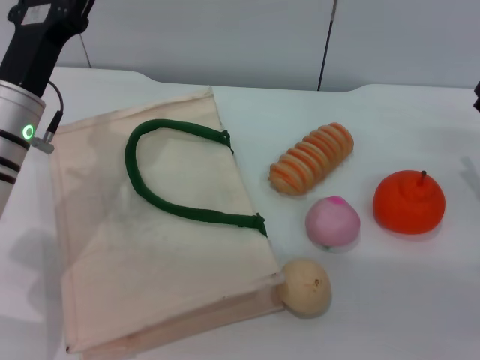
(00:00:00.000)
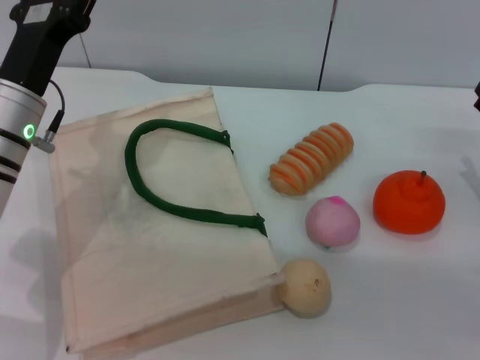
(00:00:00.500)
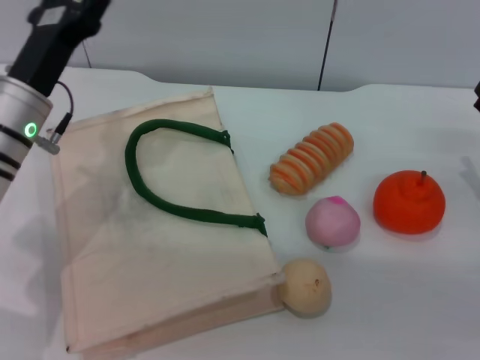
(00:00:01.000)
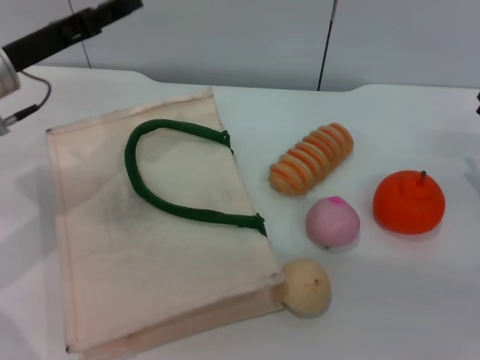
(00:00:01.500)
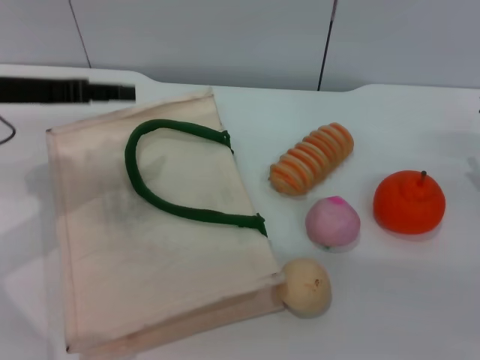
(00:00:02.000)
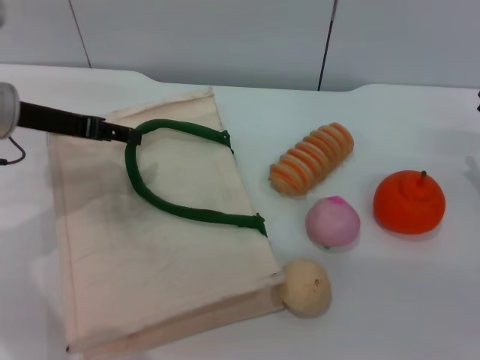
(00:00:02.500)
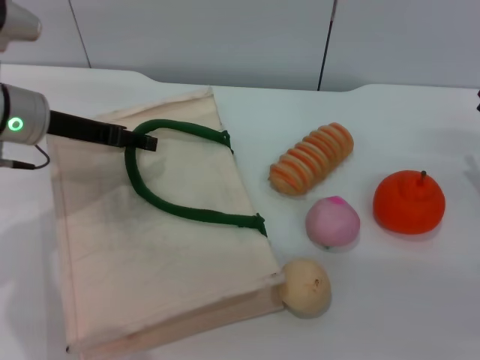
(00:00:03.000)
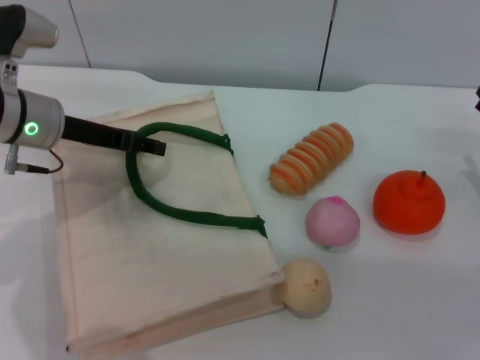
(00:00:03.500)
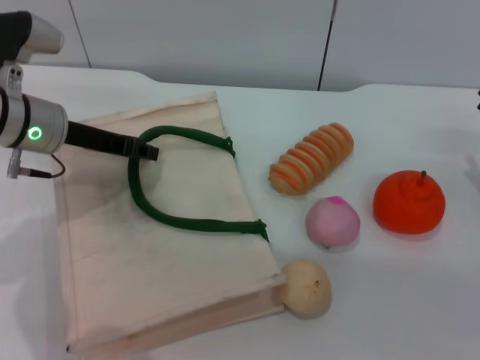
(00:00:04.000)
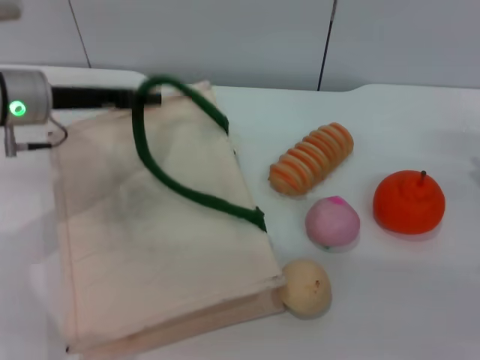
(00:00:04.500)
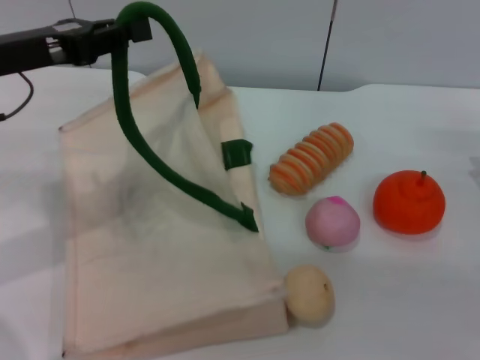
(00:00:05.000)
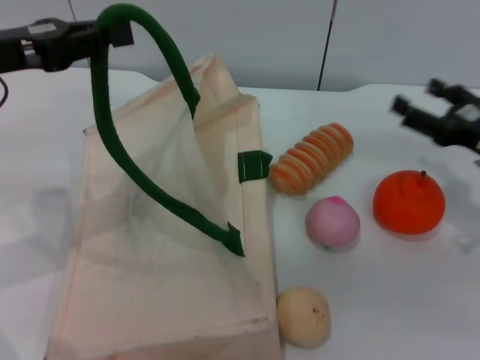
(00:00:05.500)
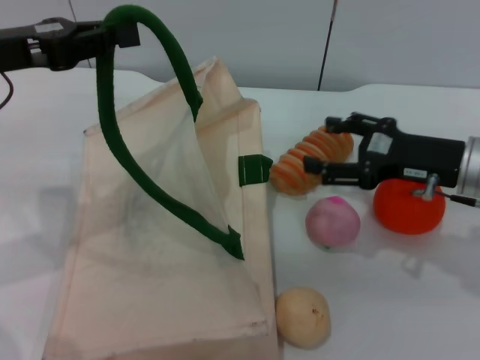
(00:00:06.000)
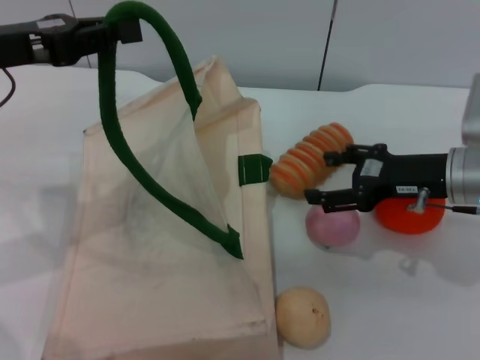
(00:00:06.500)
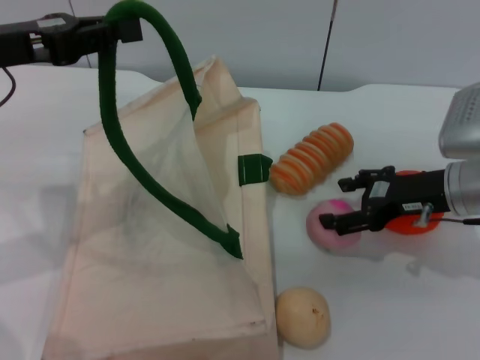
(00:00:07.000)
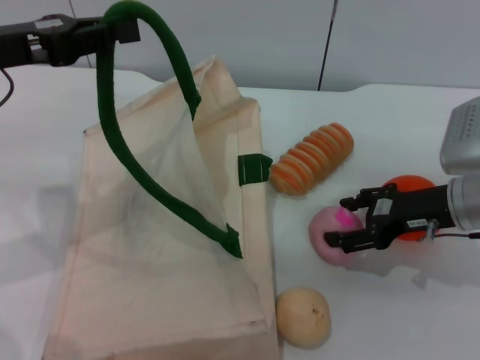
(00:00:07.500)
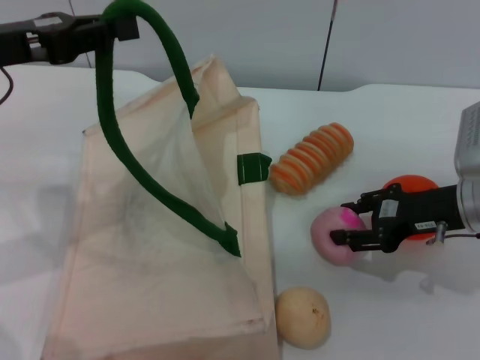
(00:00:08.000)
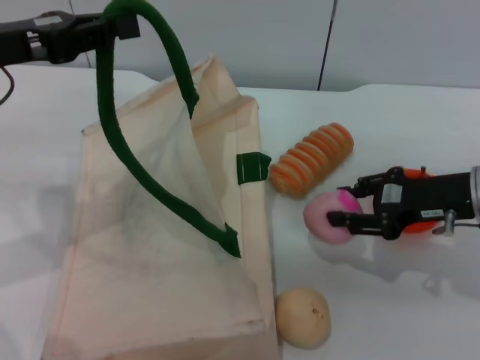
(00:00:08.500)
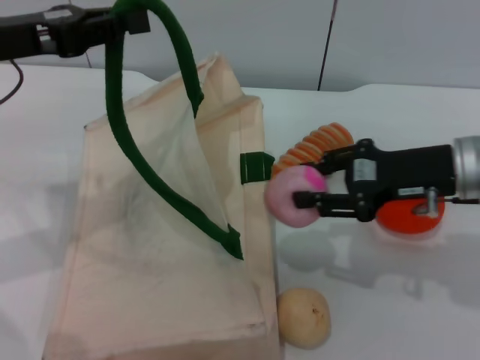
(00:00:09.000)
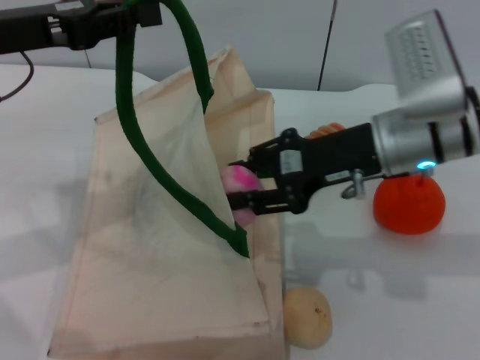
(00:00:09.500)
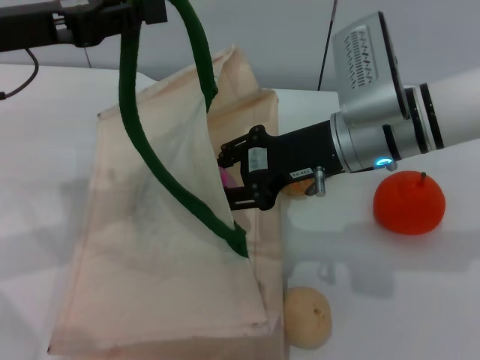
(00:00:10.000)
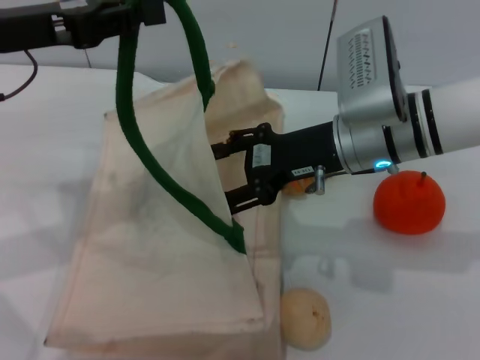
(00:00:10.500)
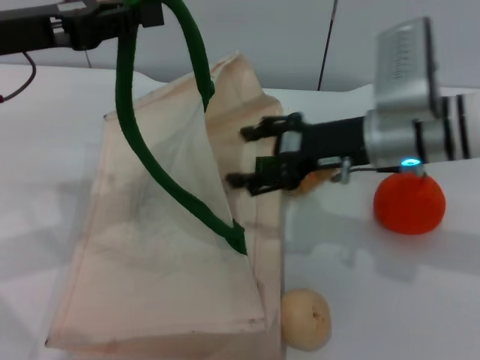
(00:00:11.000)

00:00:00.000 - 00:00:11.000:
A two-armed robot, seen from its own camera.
Task of the whole recording: pick up the peach from the table and place it in the white handbag.
Step, 00:00:00.000 - 00:00:05.500: Lift the woven bag with the left gripper to open it.
Step, 00:00:06.000 - 00:00:08.500: Pick up the peach with the right gripper.
Step, 00:00:09.000 - 00:00:10.500: Place the peach into the woven bag with the right gripper.
00:00:00.000 - 00:00:02.000: The left gripper shifts some 10 cm to the left and upward.
00:00:02.000 - 00:00:03.500: The left gripper shifts by approximately 5 cm.
00:00:03.500 - 00:00:05.500: The left gripper travels upward and backward by approximately 10 cm, and closes its fingers.
00:00:05.500 - 00:00:07.500: The right gripper is displaced to the left by some 5 cm.
00:00:07.500 - 00:00:09.000: The right gripper travels upward by some 5 cm, and closes.
00:00:09.000 - 00:00:11.000: The right gripper travels to the left by about 5 cm, and opens.

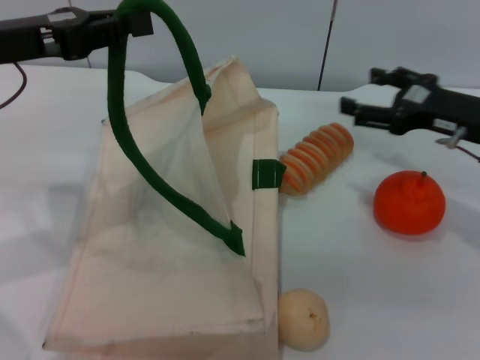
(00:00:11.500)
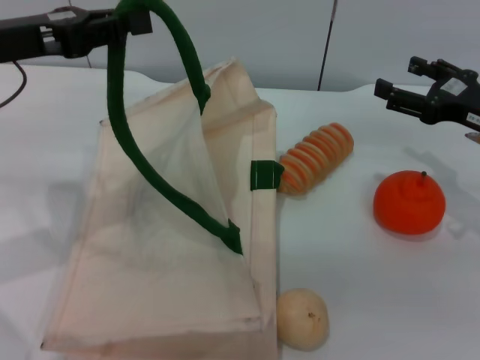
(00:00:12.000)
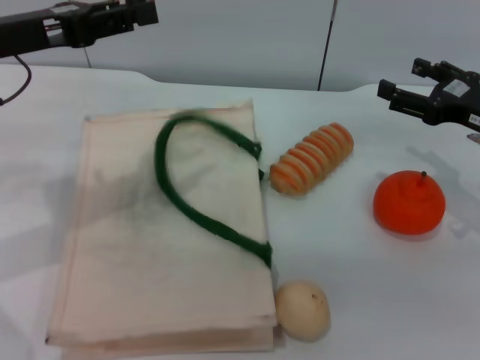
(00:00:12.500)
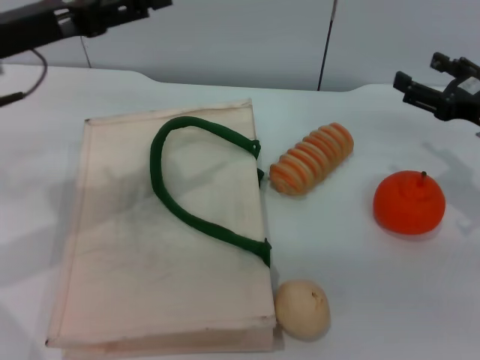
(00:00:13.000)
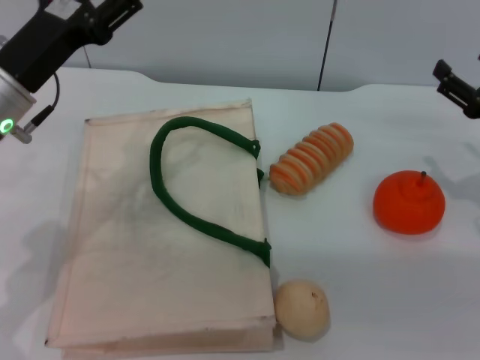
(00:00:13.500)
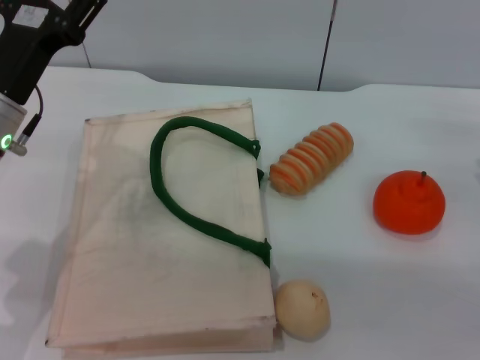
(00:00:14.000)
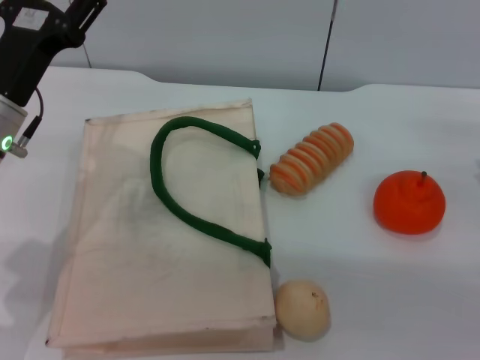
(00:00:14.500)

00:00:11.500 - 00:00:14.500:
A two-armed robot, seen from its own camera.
Task of the whole recording: pick up the peach from the table and place it in the white handbag.
Step, 00:00:11.500 - 00:00:12.500: Lower the woven bag with the left gripper to close it.
00:00:11.500 - 00:00:13.000: The left gripper opens up.
00:00:13.000 - 00:00:14.500: The right gripper moves roughly 5 cm; the left gripper heads downward, covering roughly 10 cm.

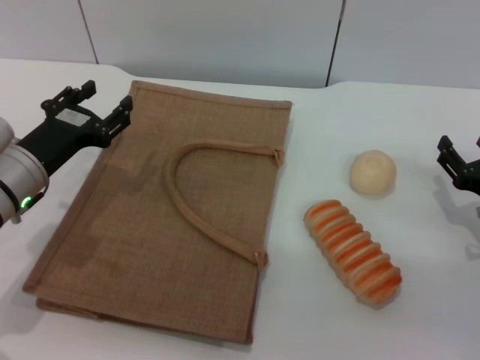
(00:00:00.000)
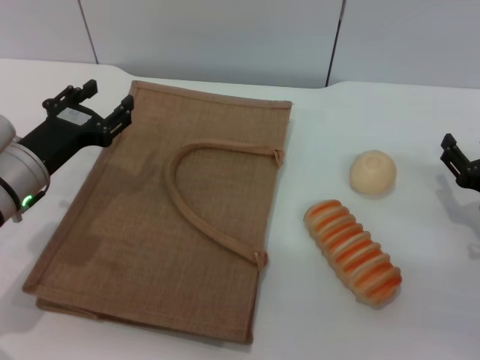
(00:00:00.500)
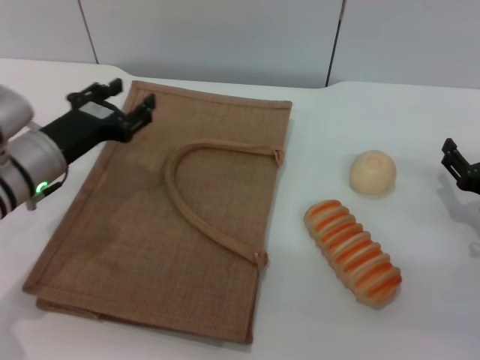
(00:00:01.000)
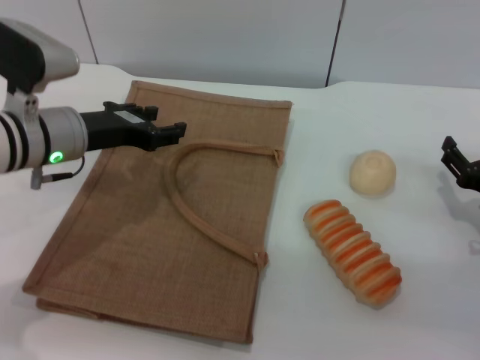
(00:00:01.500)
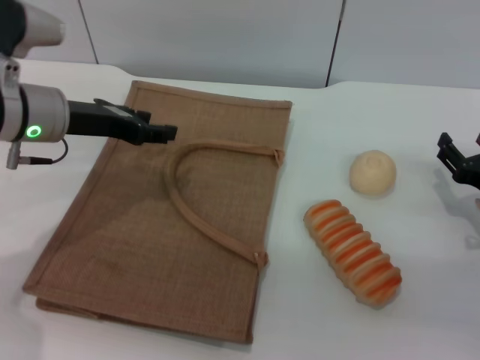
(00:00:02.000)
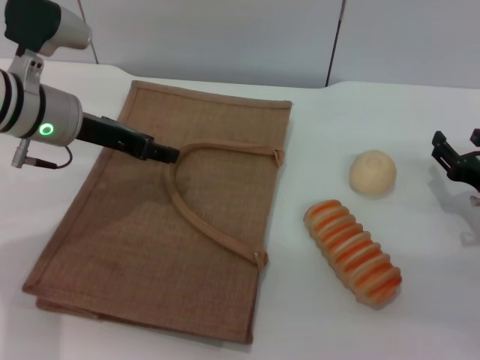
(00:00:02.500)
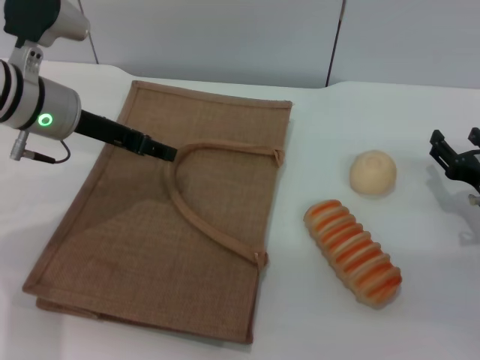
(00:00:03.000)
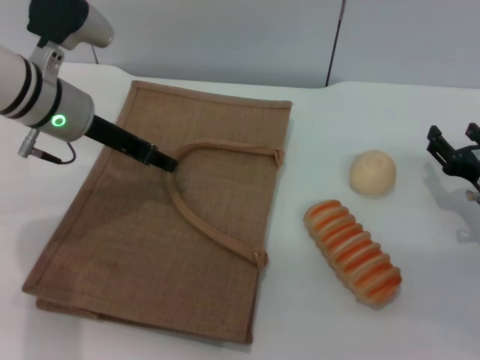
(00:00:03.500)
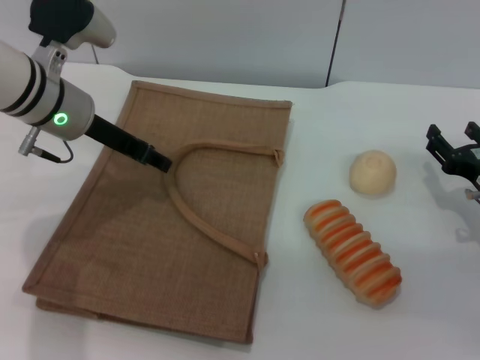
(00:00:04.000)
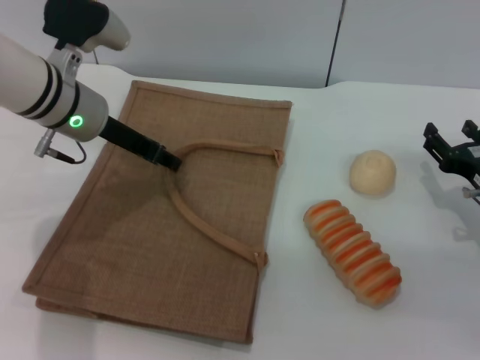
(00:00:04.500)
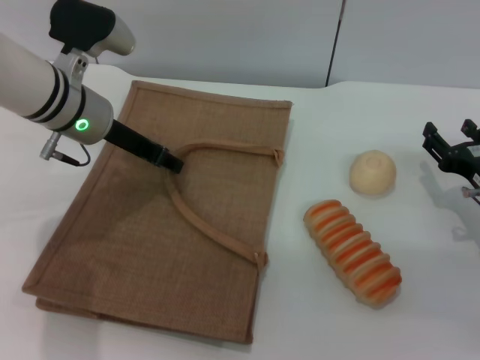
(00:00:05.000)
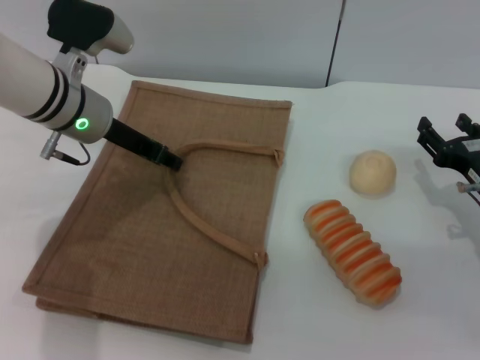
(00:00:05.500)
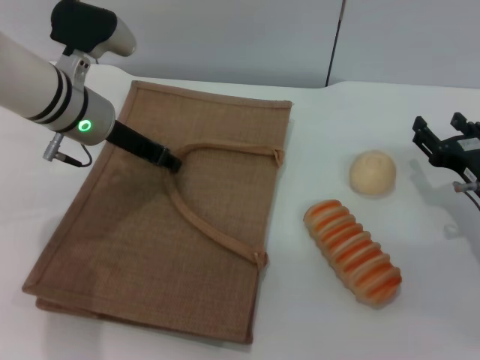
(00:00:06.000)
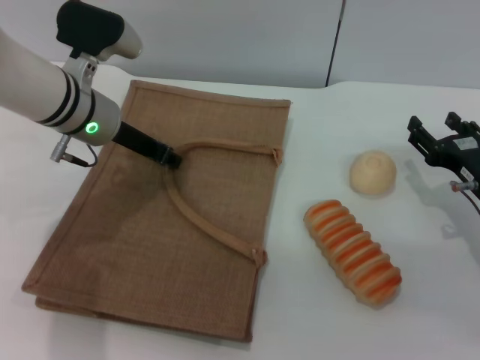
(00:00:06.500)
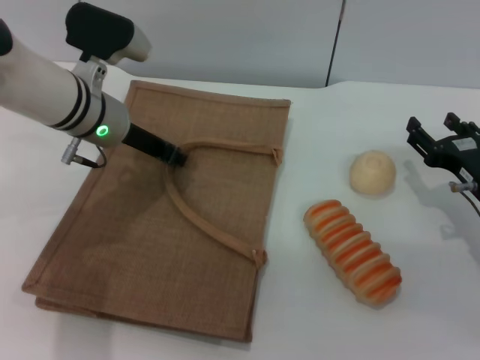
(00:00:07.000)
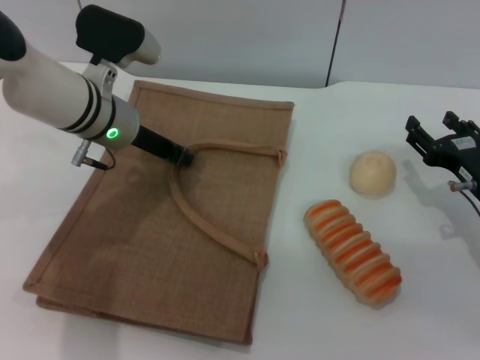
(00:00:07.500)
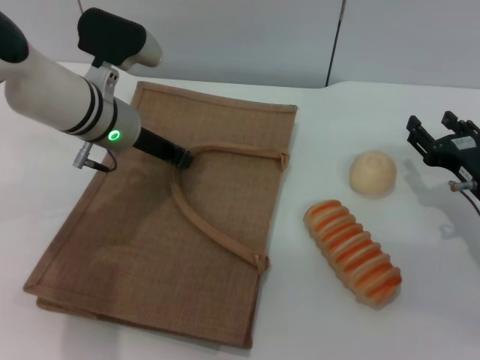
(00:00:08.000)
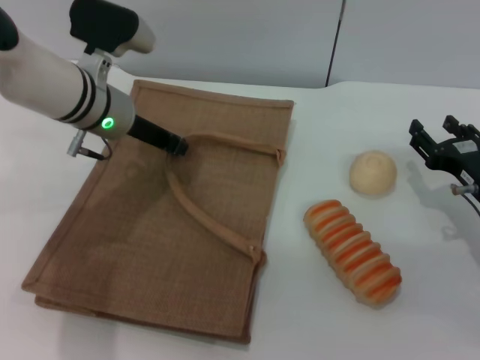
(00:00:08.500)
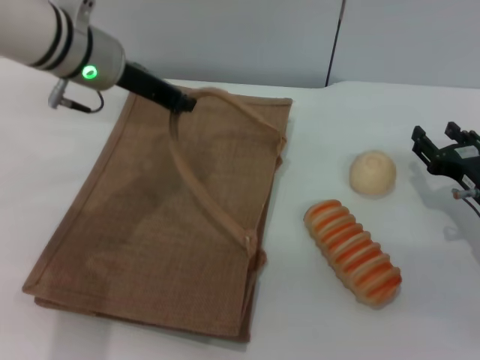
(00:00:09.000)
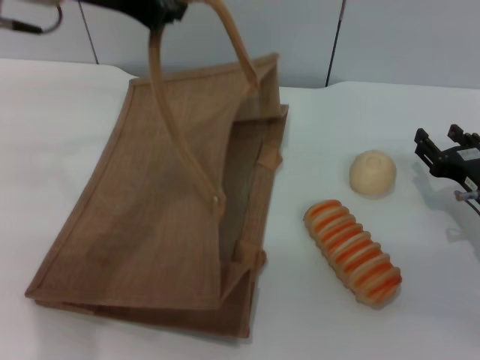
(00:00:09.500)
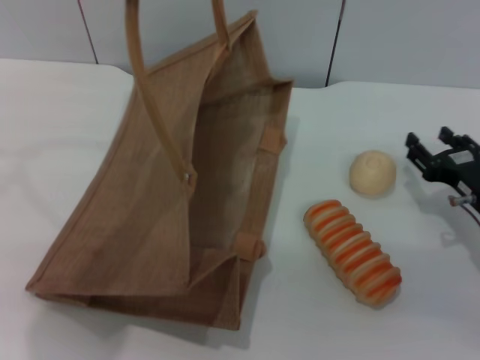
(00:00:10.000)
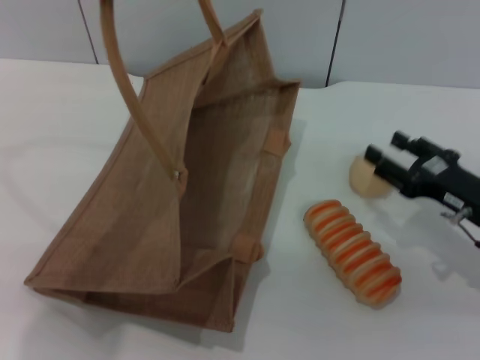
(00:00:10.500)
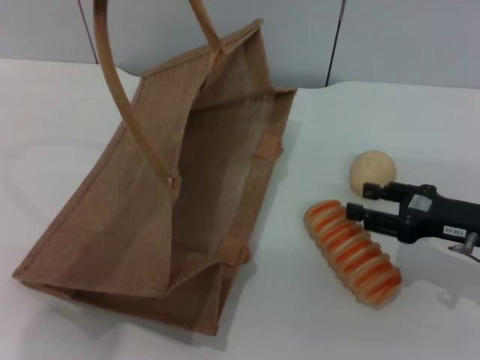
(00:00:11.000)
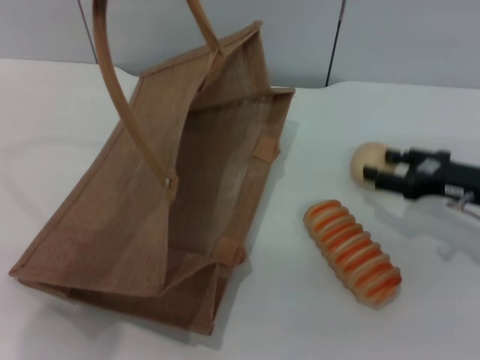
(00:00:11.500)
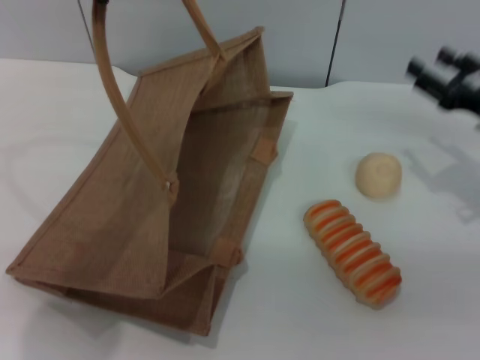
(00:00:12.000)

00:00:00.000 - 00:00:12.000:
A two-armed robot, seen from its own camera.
Task of the whole recording: pick up the bread and egg yolk pastry from the table and place it in the brown handbag.
Step, 00:00:00.000 - 00:00:10.000: Lift the woven bag with the left gripper to open it.
00:00:00.000 - 00:00:02.000: The left gripper moves upward and forward, roughly 10 cm.
00:00:04.000 - 00:00:06.000: The grippers move only a little.
00:00:06.000 - 00:00:08.000: The left gripper closes up.
00:00:08.000 - 00:00:10.000: The left gripper heads upward, covering about 25 cm.
00:00:10.000 - 00:00:12.000: The right gripper goes some 5 cm upward.
